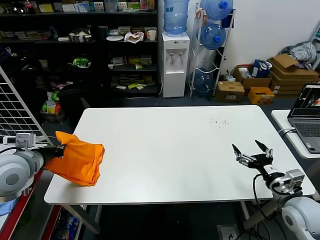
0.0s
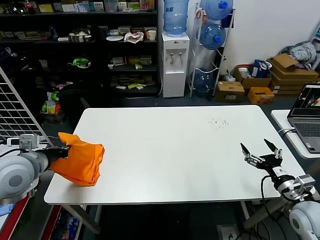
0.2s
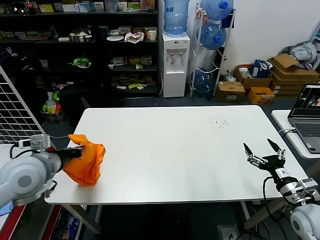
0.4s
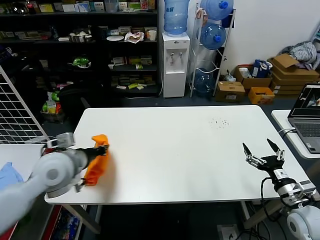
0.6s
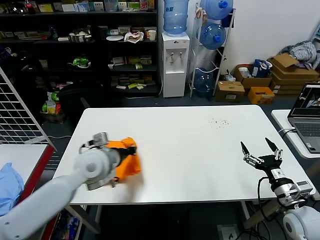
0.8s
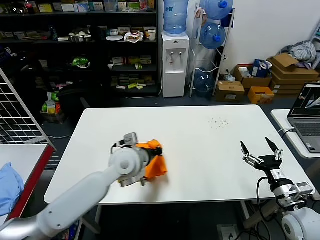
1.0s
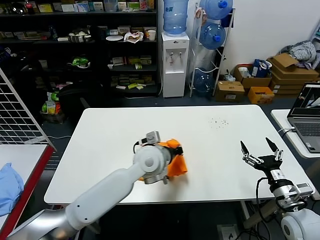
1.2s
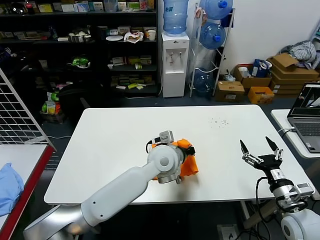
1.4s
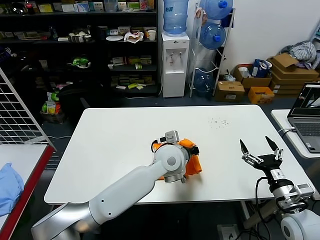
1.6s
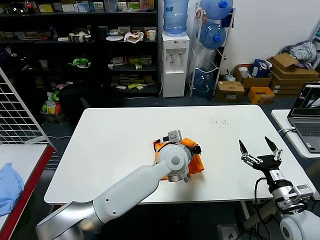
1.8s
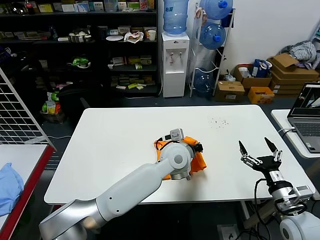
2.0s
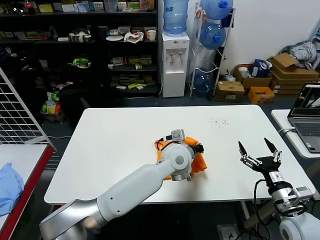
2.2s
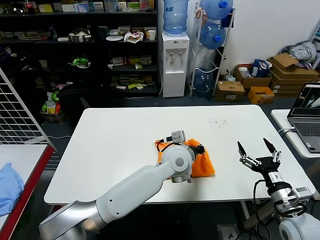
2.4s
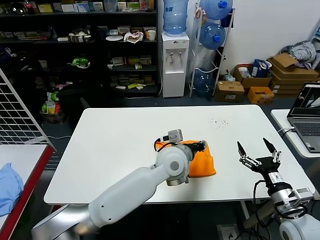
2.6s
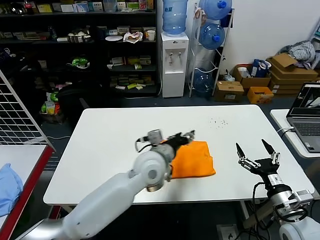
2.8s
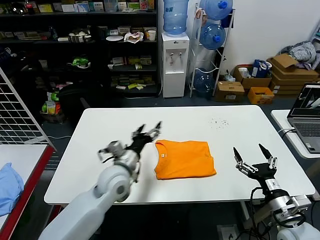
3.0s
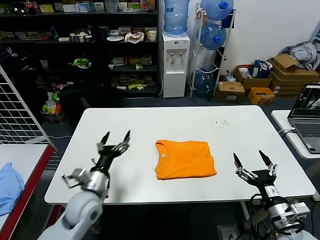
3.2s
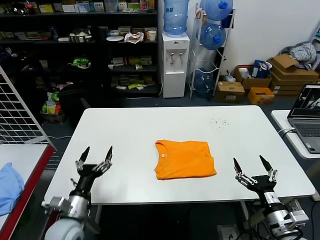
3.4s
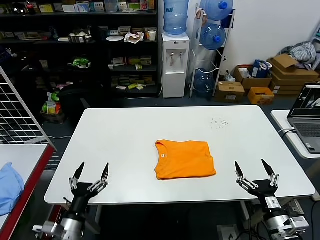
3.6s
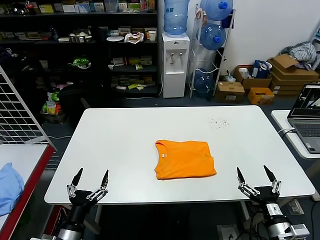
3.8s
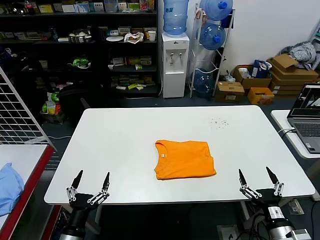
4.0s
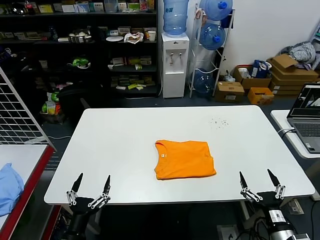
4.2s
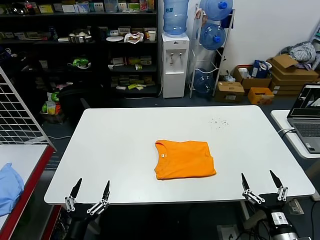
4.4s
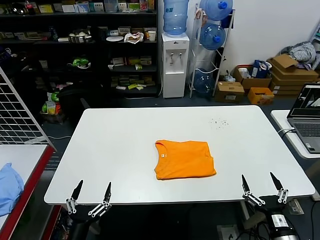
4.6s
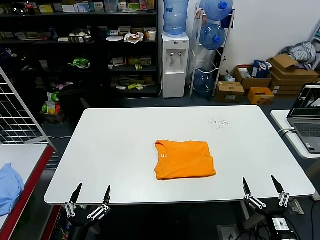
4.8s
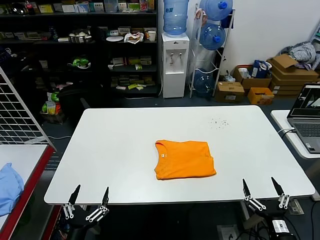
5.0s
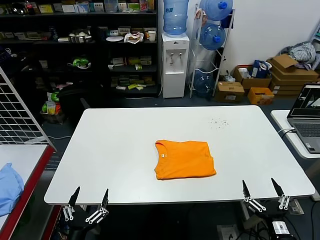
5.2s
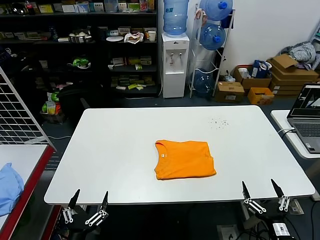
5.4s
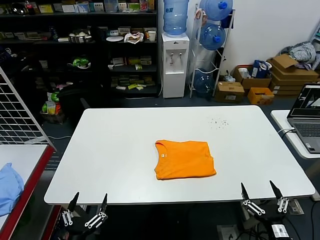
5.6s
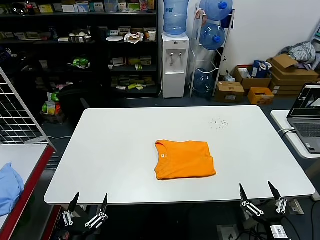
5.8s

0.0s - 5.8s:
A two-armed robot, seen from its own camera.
Task of the whole recording: fold and organize the clothes.
Step, 0.0s - 2.4s: Flip the folded clothes over with left gripper.
0.0s - 1.4s: The left gripper heads to the right, covering about 40 cm.
1.4s - 2.8s: The left gripper opens up.
2.8s - 4.4s: The right gripper travels backward and downward by approximately 10 cm. The left gripper goes approximately 40 cm backward, to the left and downward, and opens up.
4.4s - 5.8s: The grippers move only a little.

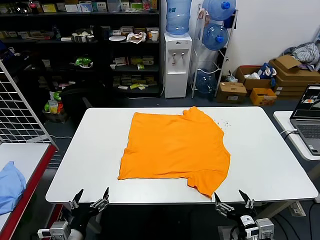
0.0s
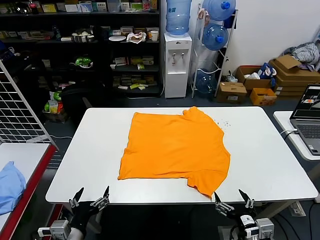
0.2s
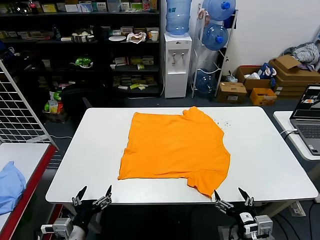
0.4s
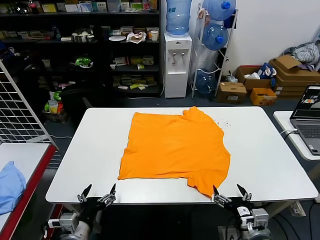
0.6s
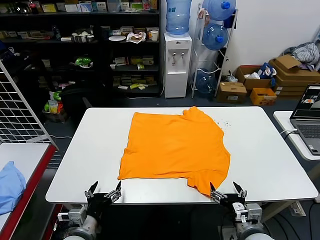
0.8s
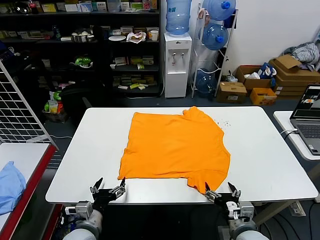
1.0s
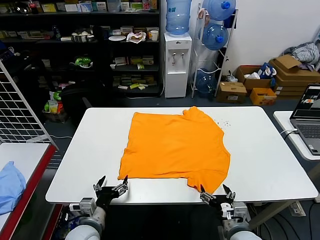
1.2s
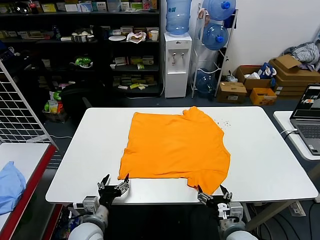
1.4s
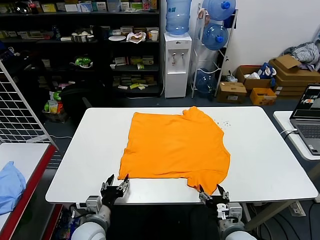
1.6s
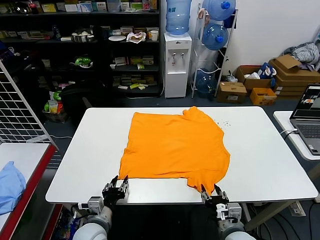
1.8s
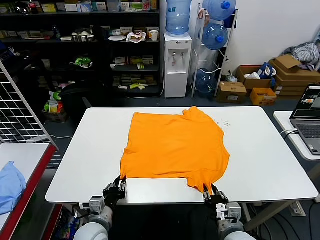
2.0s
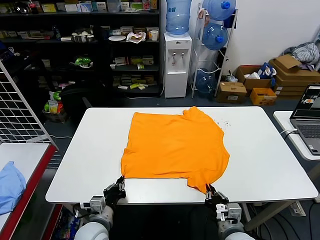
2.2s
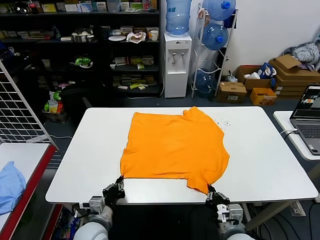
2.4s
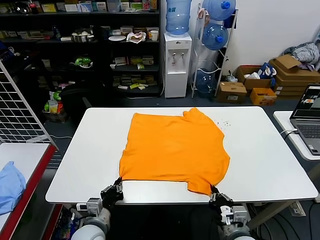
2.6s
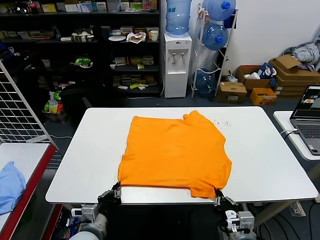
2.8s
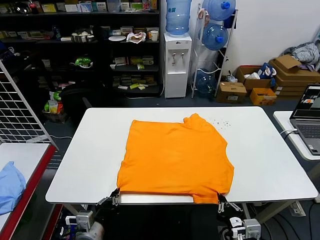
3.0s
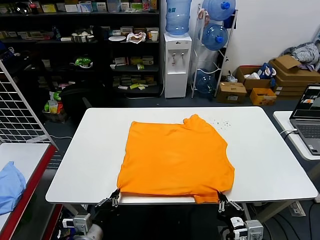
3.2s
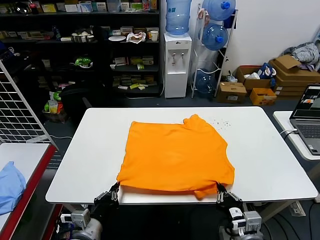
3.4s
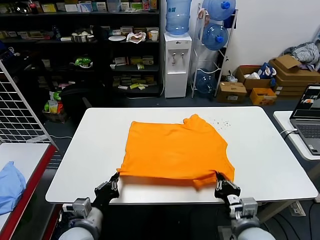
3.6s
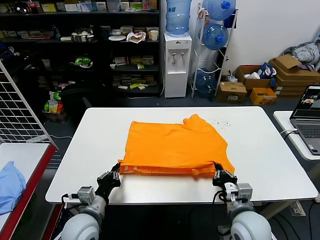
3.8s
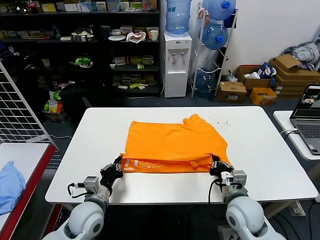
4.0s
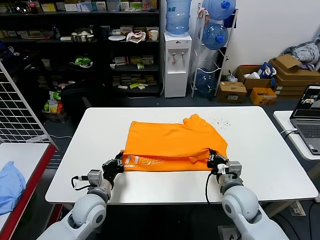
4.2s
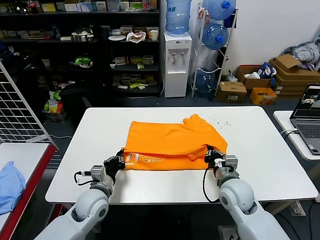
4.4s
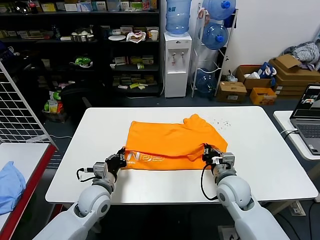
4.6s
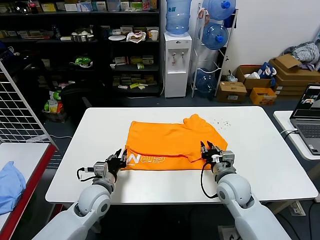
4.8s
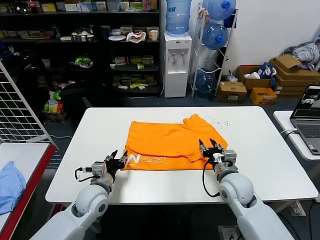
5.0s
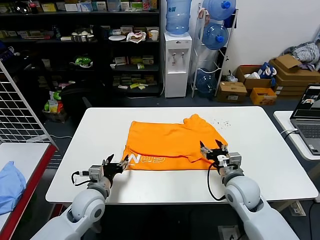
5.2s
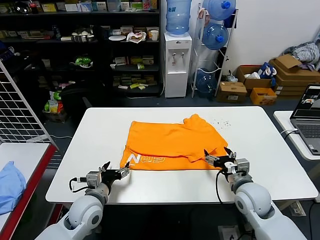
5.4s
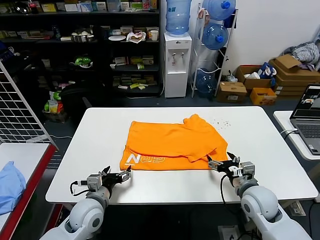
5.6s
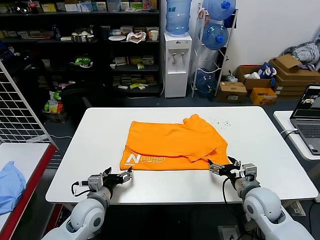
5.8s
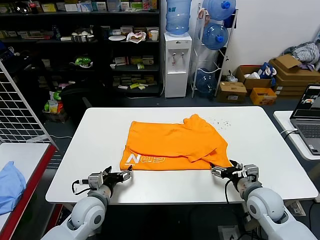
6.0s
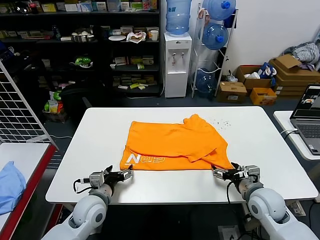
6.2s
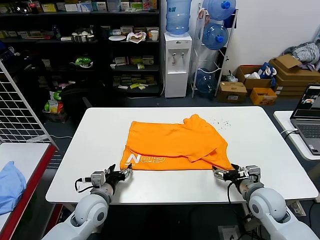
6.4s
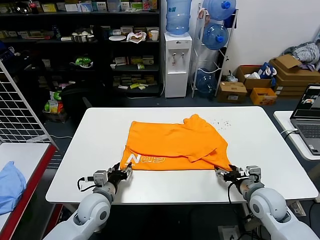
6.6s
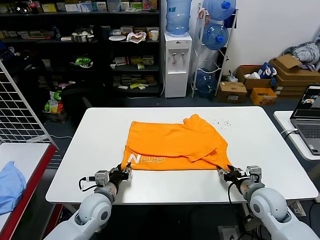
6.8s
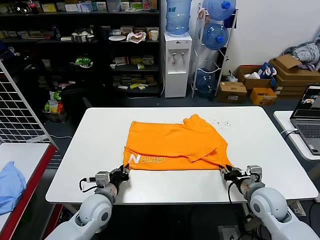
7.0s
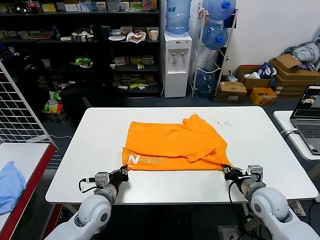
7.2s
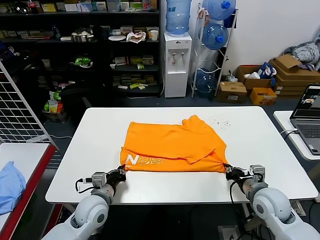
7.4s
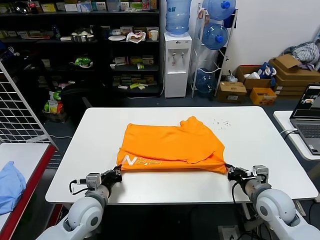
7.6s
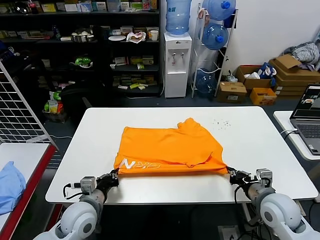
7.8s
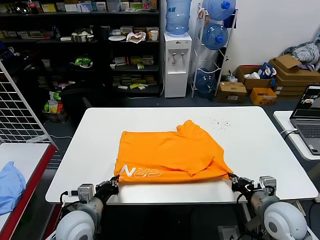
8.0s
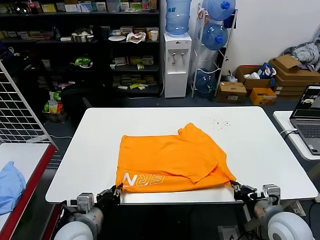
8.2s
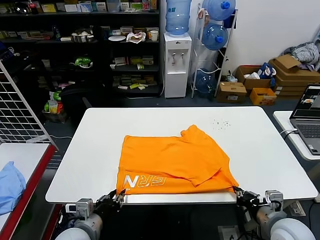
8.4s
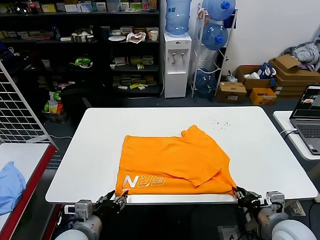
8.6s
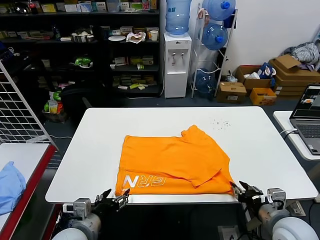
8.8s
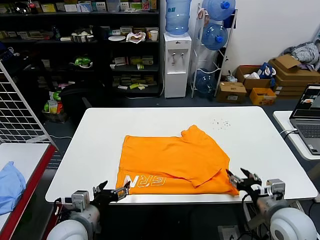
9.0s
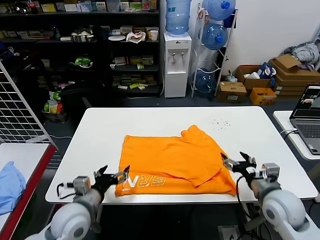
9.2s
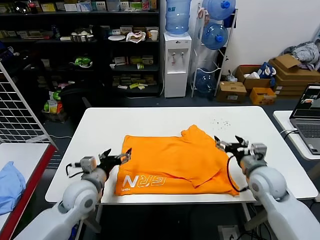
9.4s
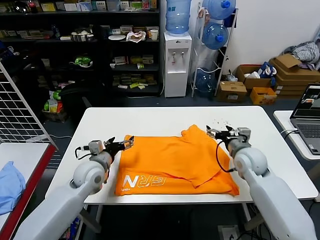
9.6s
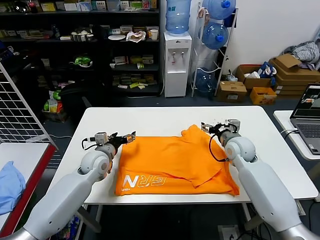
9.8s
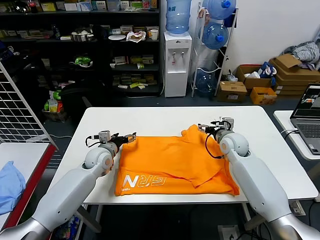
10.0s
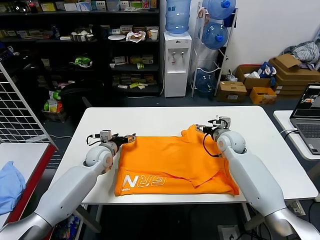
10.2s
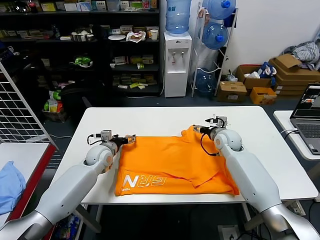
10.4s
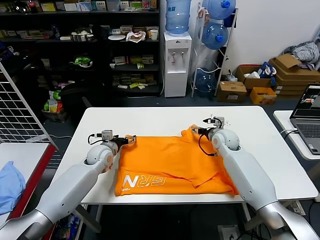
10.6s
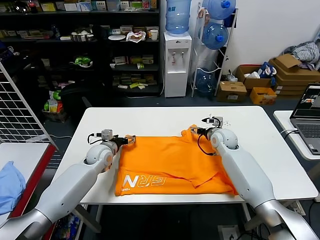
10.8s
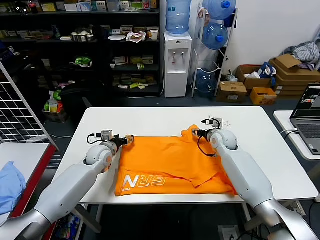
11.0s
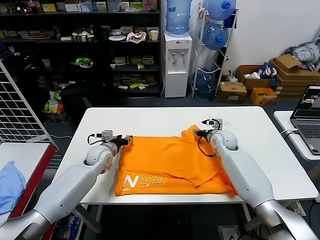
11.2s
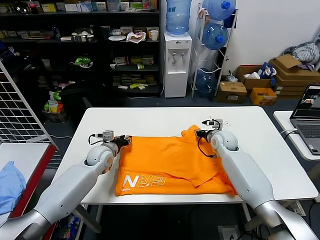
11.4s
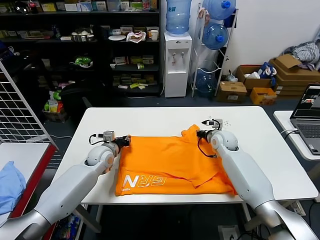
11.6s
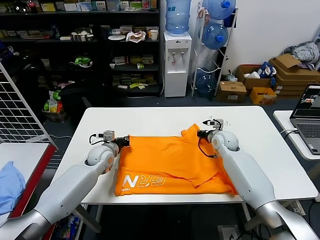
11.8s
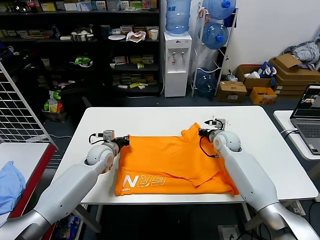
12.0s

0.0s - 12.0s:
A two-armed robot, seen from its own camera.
Task of the whole recording: fold and organize the clothes.
Step, 0.0s - 2.2s: use both grippers simultaneously to clamp the lower edge of the clothing fabric.
Step, 2.4s - 4.6s: use both grippers to drag the lower edge of the fabric forward and fold it over the upper edge.
Step, 5.0s - 8.6s: Drag the clothes downward with both gripper.
Step, 8.8s - 11.8s: use both grippers simultaneously to clamp the upper edge of the clothing fabric.
1.6s - 3.0s: The left gripper travels backward by some 5 cm, and closes. Meanwhile the right gripper shifts roughly 10 cm backward and upward, and closes.
3.0s - 4.4s: Both grippers travel together forward, about 15 cm.
4.4s - 6.0s: The right gripper goes some 10 cm to the right, and opens up. The left gripper opens up.
6.0s - 7.6s: The left gripper closes up; the right gripper closes its fingers.
7.6s - 9.0s: The right gripper ends up approximately 5 cm from where it was, and opens its fingers; the left gripper travels backward and upward by roughly 10 cm, and opens its fingers.
9.0s - 10.4s: Both grippers move forward, approximately 30 cm.
10.4s - 12.0s: The left gripper closes, while the right gripper closes up.

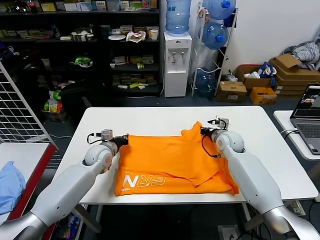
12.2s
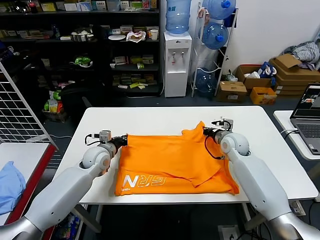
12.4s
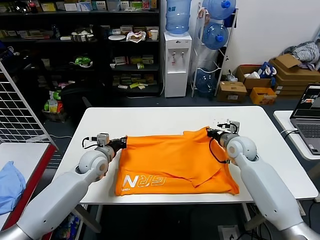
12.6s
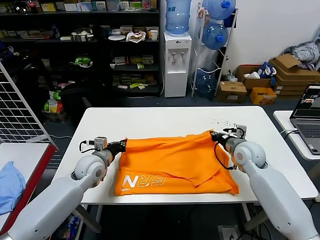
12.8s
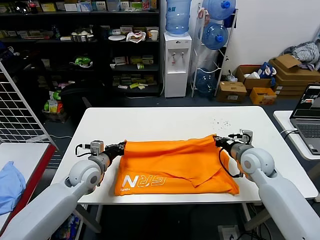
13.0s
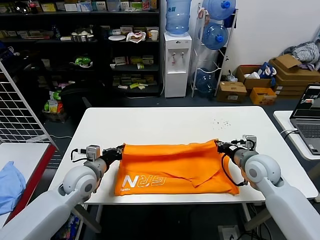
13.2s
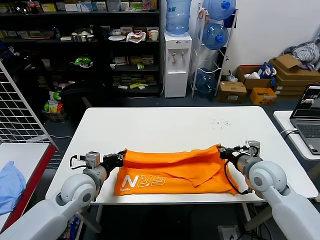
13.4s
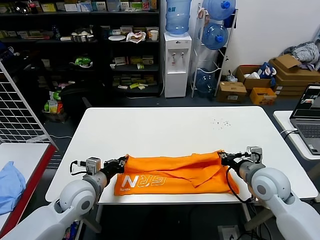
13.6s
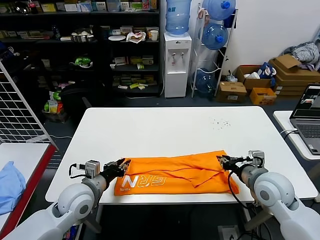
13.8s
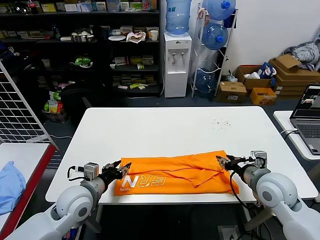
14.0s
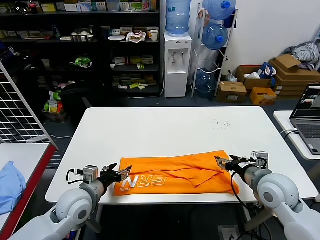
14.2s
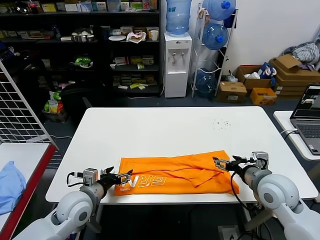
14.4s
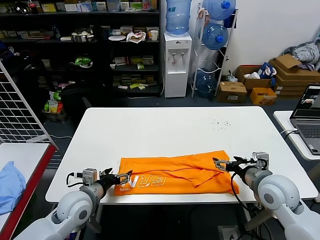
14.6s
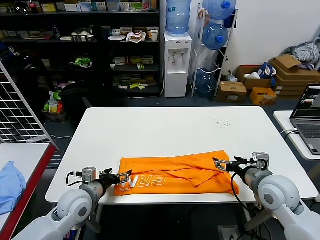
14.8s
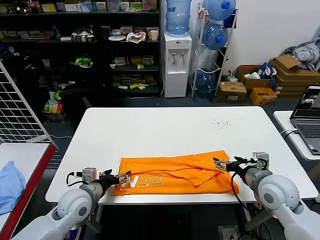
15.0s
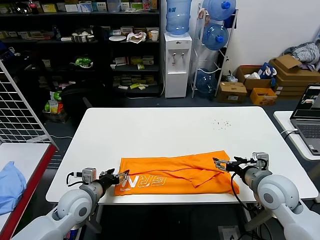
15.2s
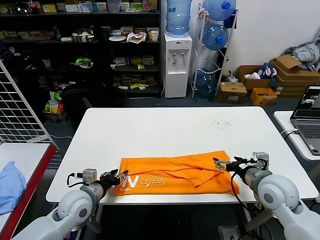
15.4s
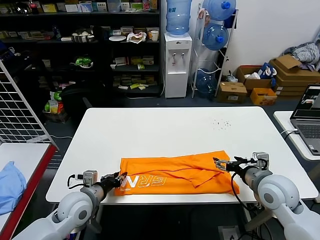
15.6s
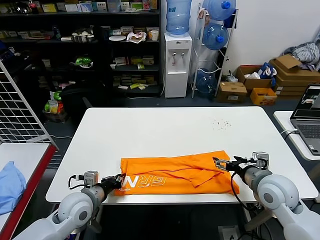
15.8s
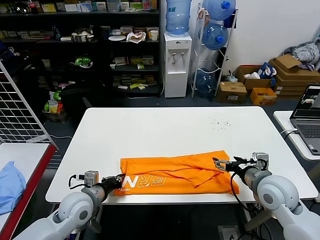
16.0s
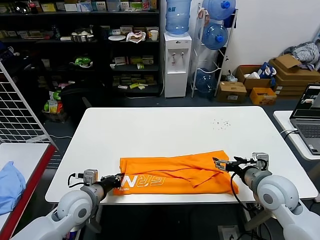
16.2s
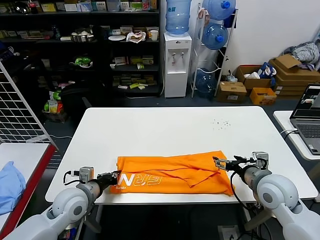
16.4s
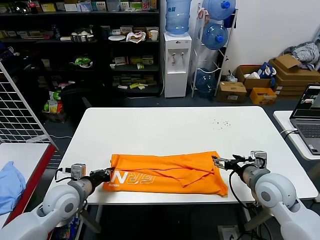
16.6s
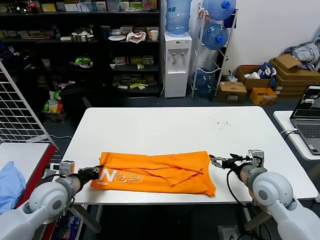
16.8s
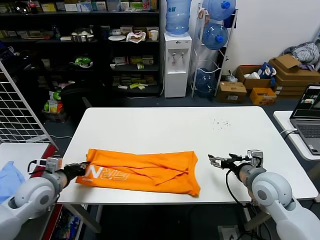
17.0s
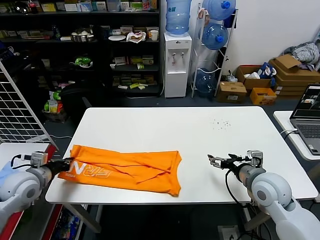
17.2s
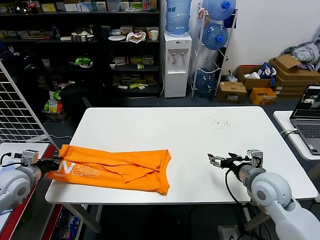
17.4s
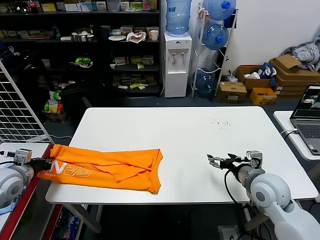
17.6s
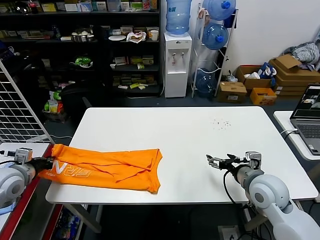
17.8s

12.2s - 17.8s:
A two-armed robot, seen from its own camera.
Task of the whole recording: fold and organize the clothes.
Step, 12.2s - 13.6s: use both grippers to drag the upper edge of the fabric backward and fold it over the lower edge.
Step, 14.0s - 16.0s: use the left gripper to clamp the left edge of the fabric.
12.2s - 13.6s: The grippers both shift backward by roughly 20 cm.
13.6s - 15.0s: The left gripper opens its fingers. The right gripper opens.
15.0s - 16.4s: The left gripper closes up.
16.4s - 17.8s: The left gripper heads to the left, covering about 20 cm.
